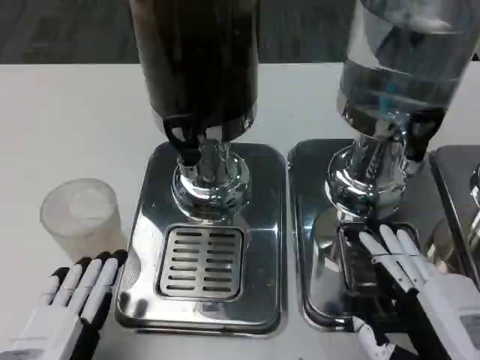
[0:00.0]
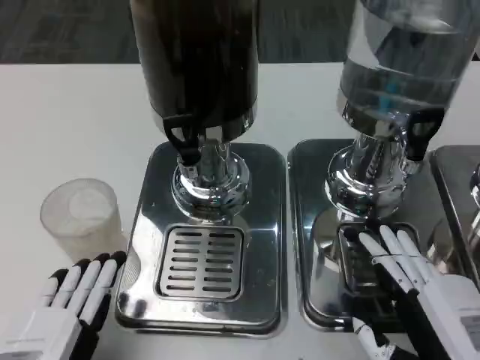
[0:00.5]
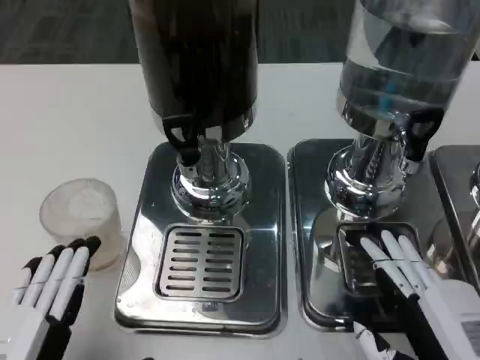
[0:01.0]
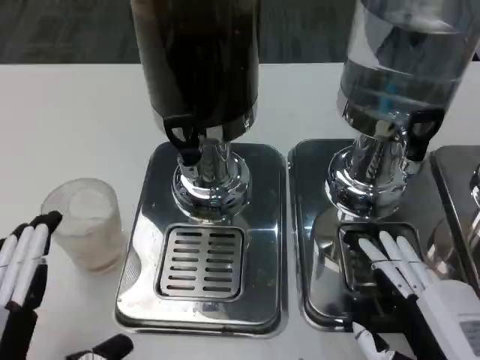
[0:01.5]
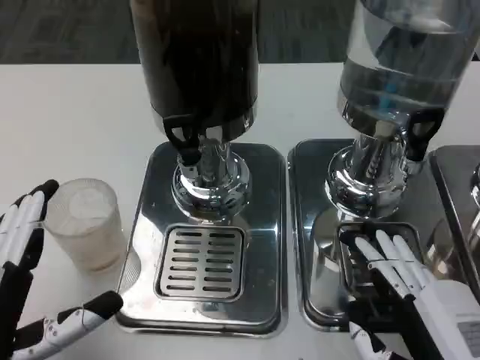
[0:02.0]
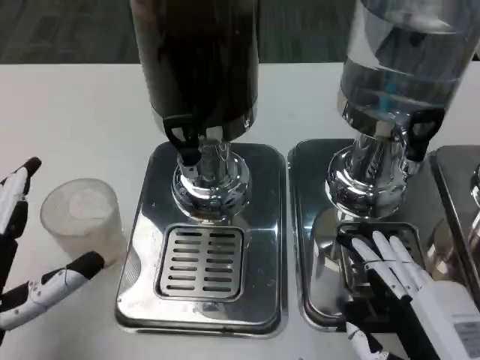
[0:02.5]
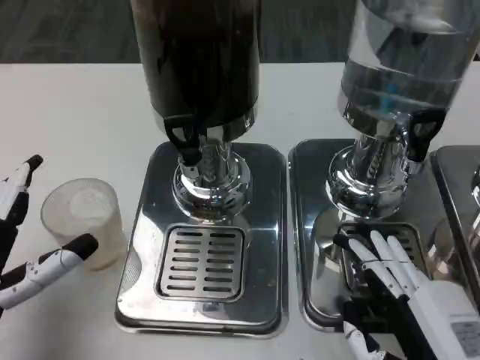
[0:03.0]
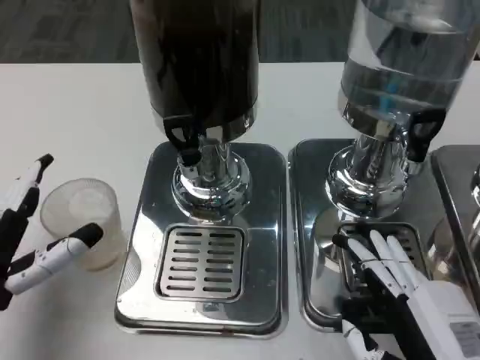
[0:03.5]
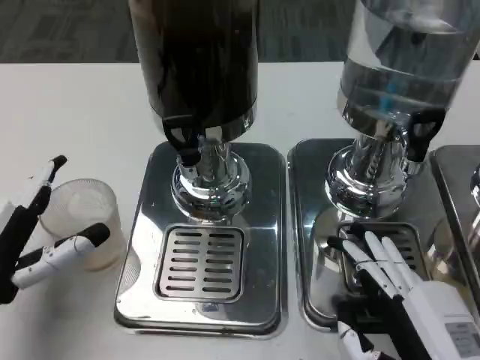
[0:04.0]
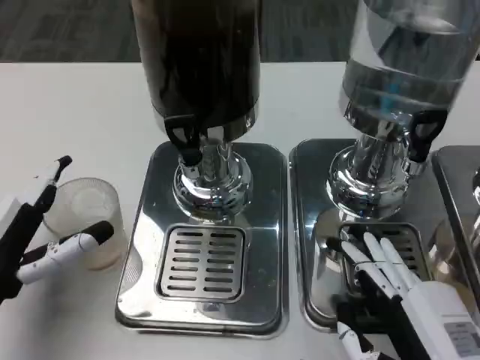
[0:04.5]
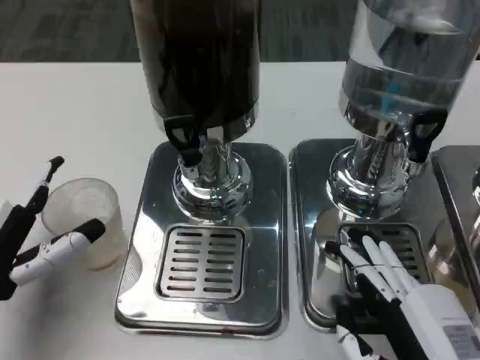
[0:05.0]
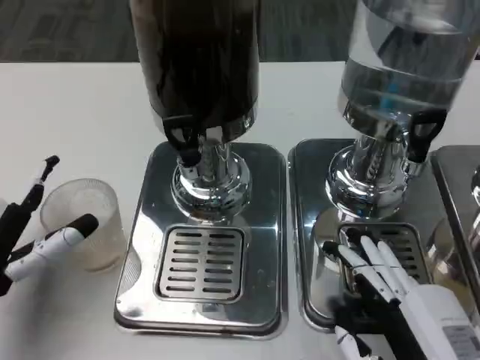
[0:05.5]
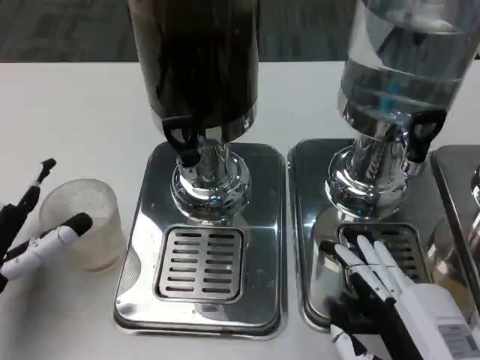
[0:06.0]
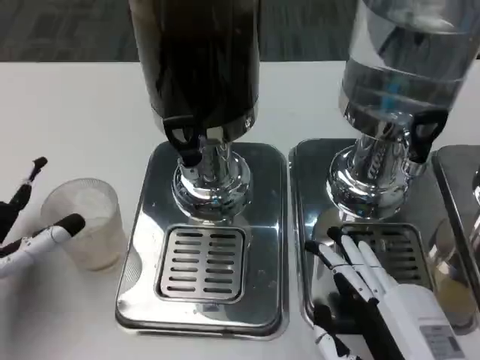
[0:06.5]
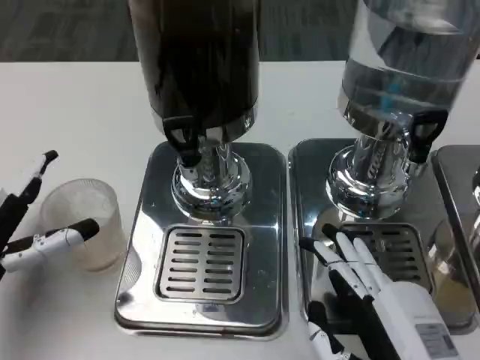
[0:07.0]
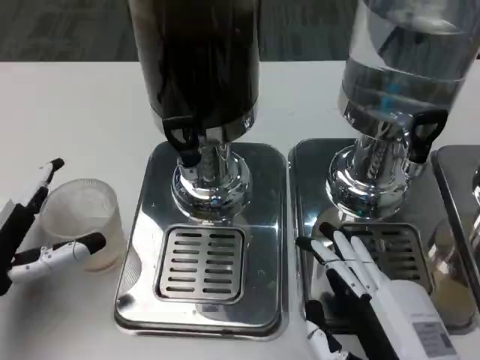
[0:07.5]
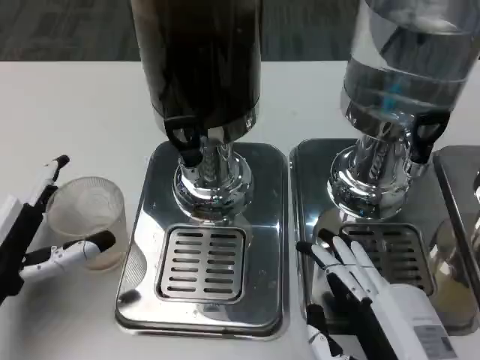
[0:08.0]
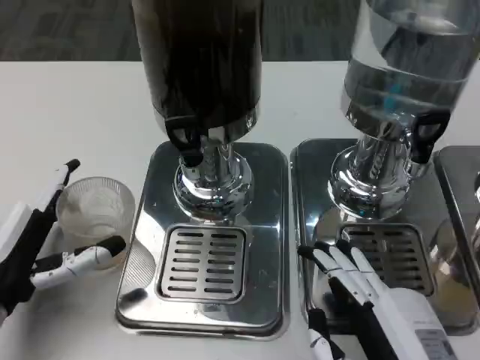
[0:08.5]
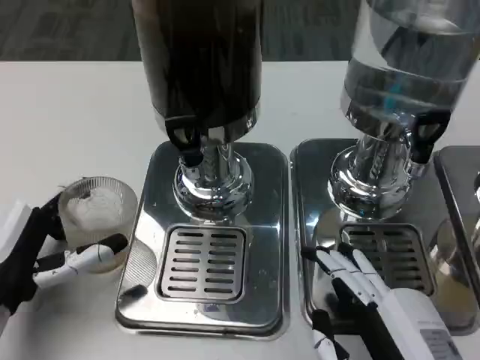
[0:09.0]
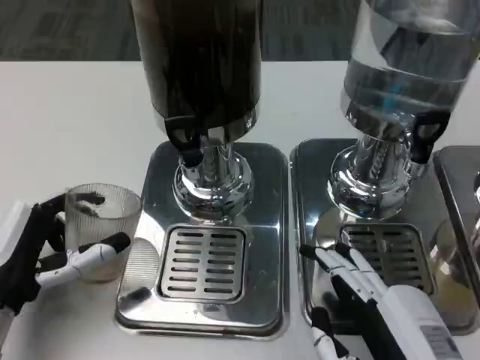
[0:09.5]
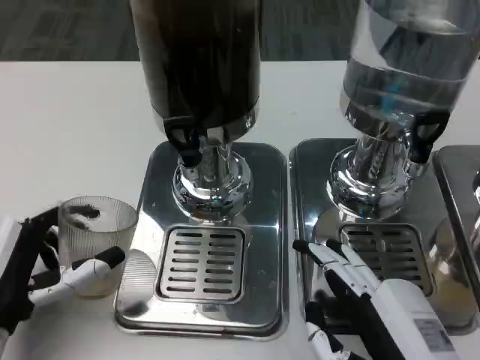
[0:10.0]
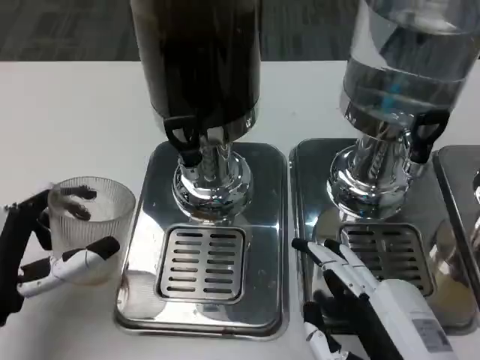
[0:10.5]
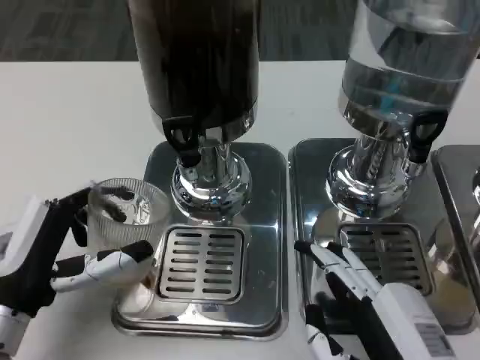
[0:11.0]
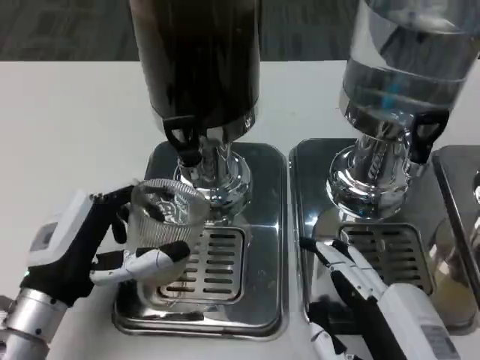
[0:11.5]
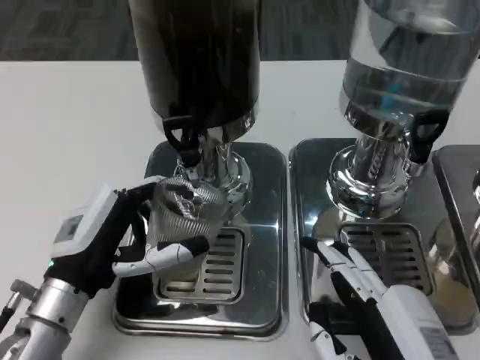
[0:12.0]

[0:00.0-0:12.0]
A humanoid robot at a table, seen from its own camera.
Task of the whole recording: Grasp the cup under the faucet to collect the drink, then remove the cup.
0:02.0 to 0:04.0: The left hand is displaced forward by about 10 cm.
0:04.0 to 0:06.0: There are only small adjustments of the hands.
0:08.0 to 0:10.0: The hands move only a little.
0:10.0 to 0:12.0: The left hand moves to the right, approximately 5 cm.

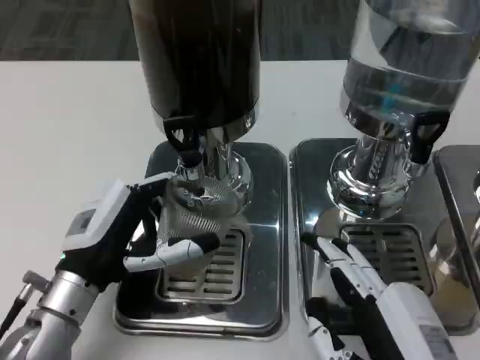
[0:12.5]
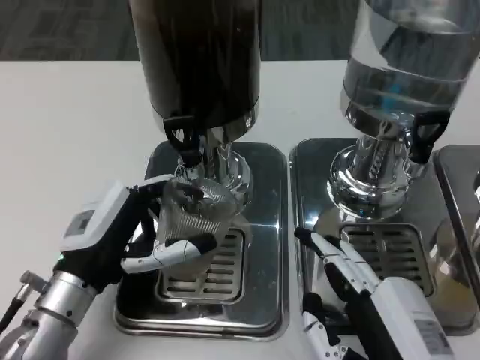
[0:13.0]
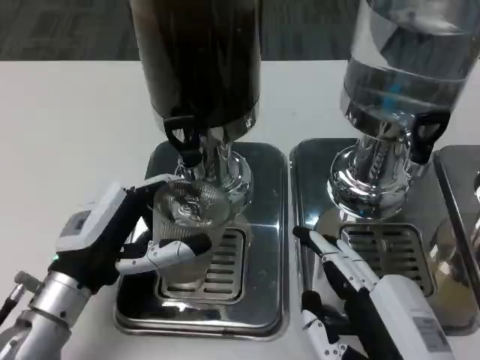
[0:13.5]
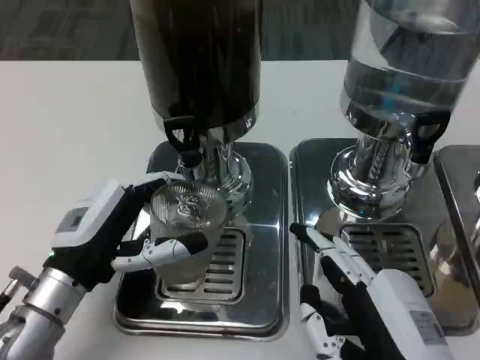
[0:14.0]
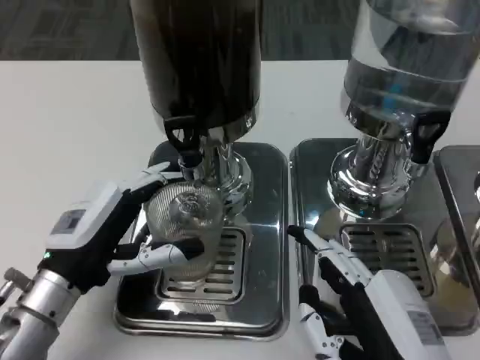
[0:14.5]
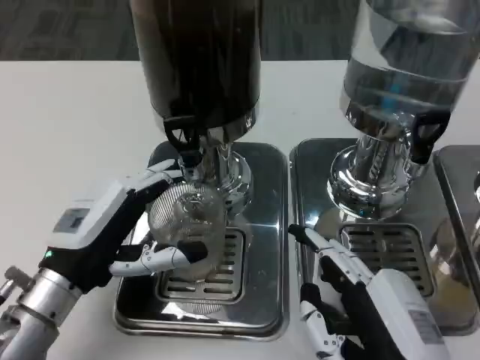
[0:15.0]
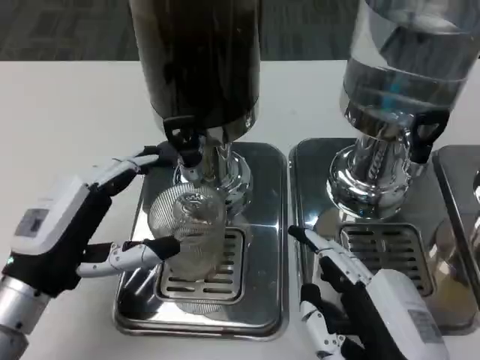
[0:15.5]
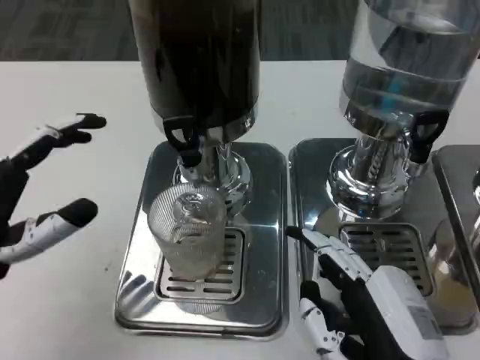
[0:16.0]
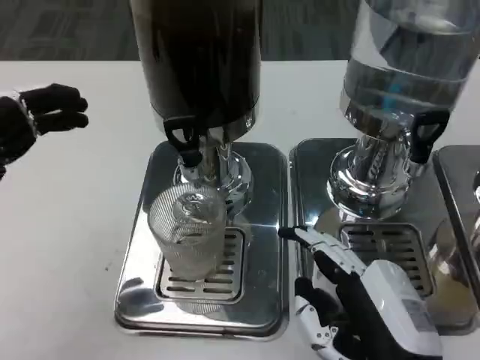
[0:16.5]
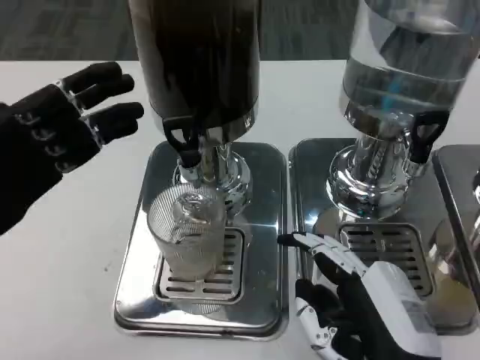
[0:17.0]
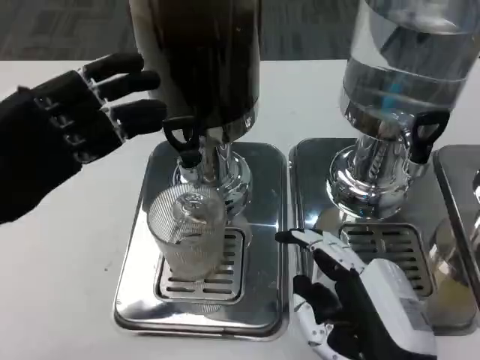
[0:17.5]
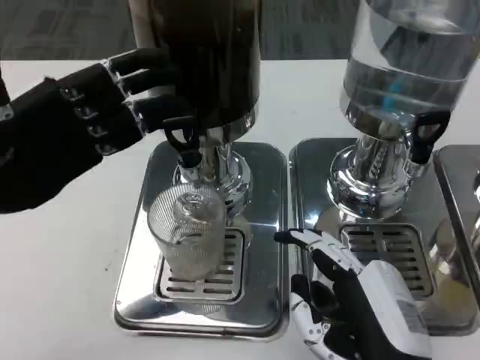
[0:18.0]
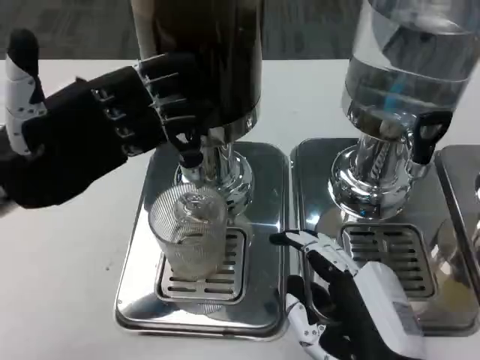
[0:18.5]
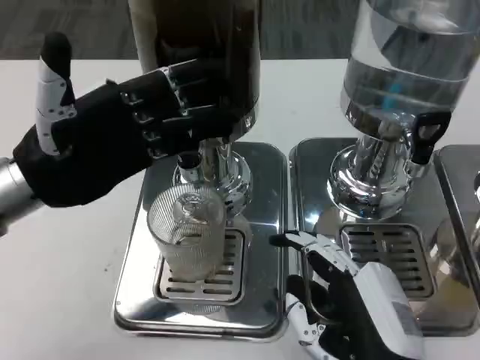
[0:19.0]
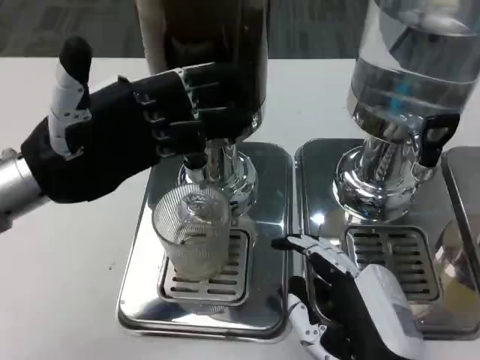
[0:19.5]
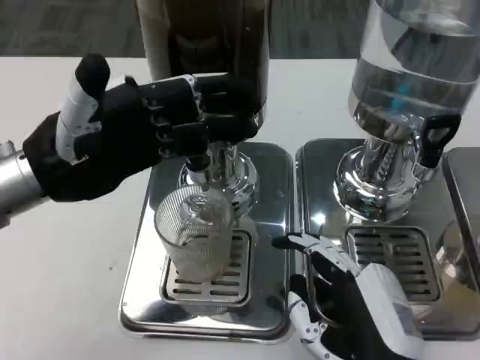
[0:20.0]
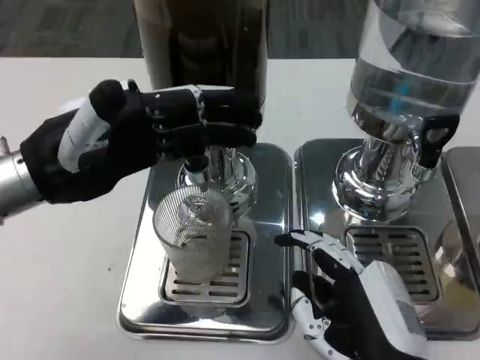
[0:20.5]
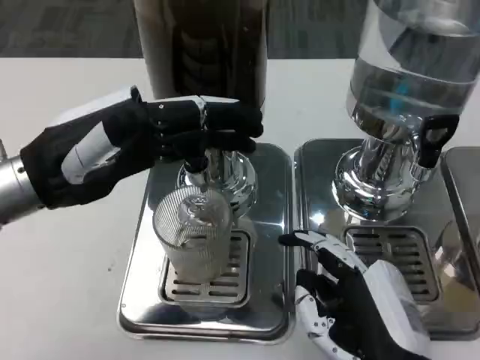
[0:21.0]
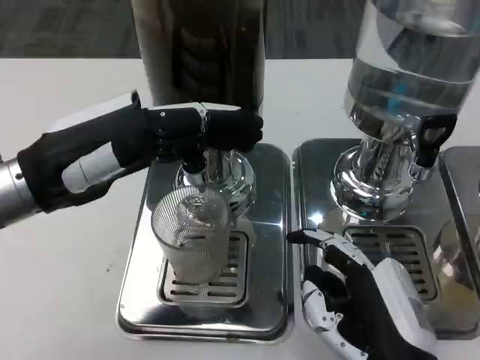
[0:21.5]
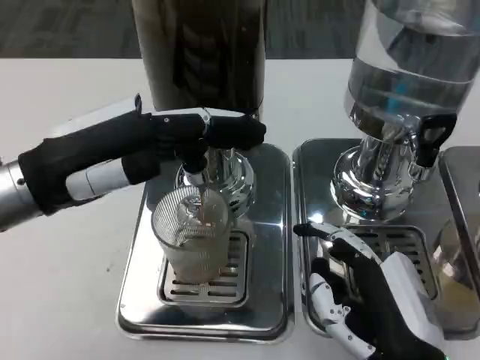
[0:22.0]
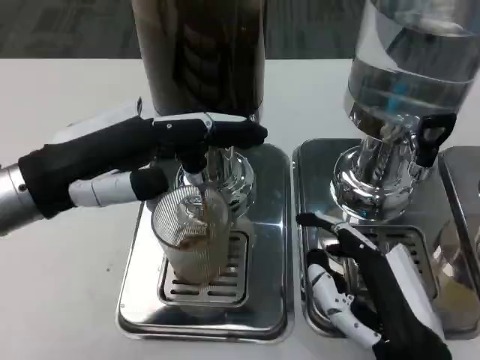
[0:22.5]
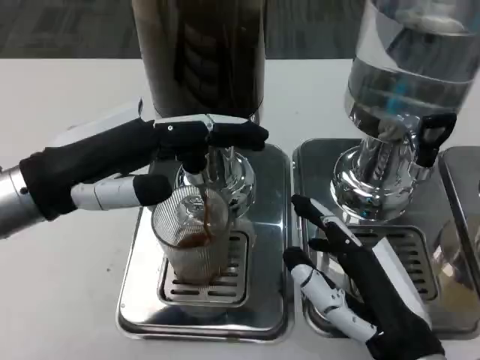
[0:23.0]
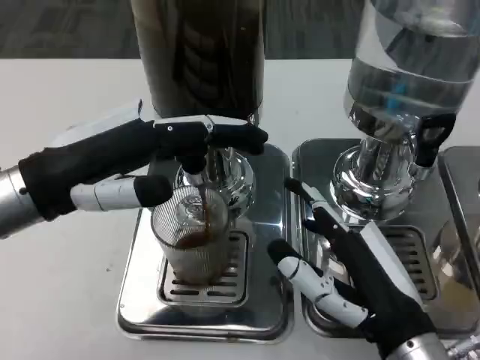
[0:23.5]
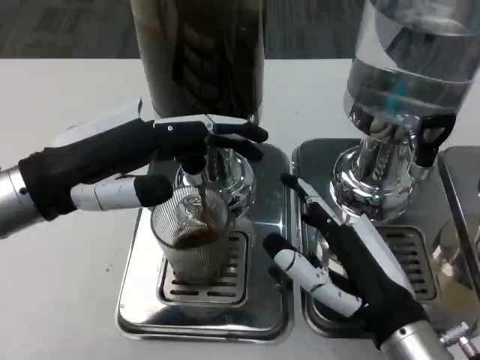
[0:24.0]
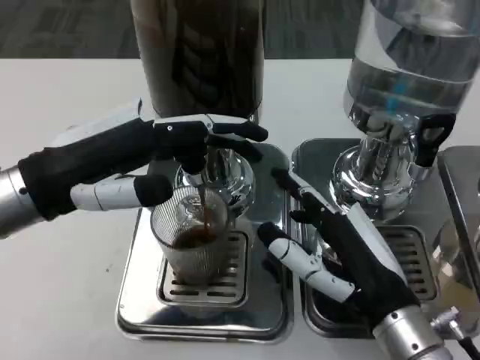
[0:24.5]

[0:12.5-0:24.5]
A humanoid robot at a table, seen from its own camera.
Task of the whole recording: Grasp the cup under the faucet to collect the drink, then remove the cup.
0:12.5 to 0:14.5: The hands stay close to where they were, moving slightly.
0:14.5 to 0:16.5: The left hand travels upward and to the left by roughly 10 cm.
0:16.5 to 0:18.5: The left hand heads forward, covering roughly 10 cm.
0:22.5 to 0:24.5: The right hand is displaced forward by roughly 5 cm.

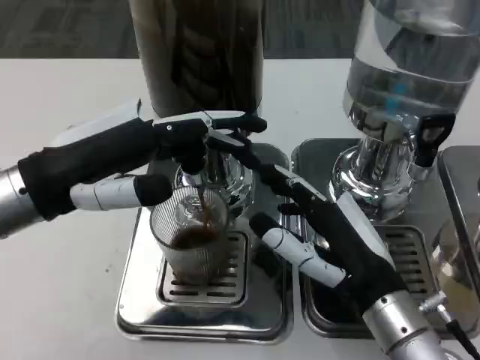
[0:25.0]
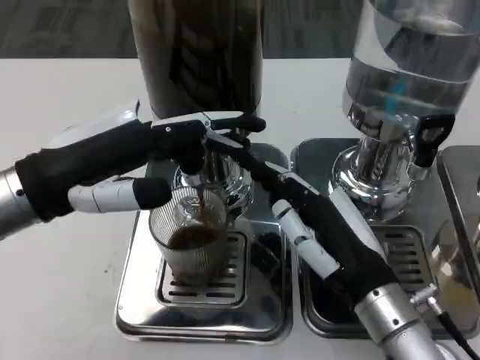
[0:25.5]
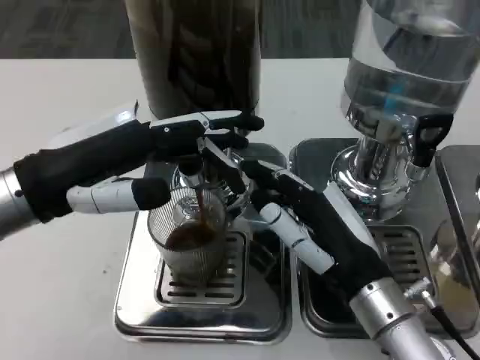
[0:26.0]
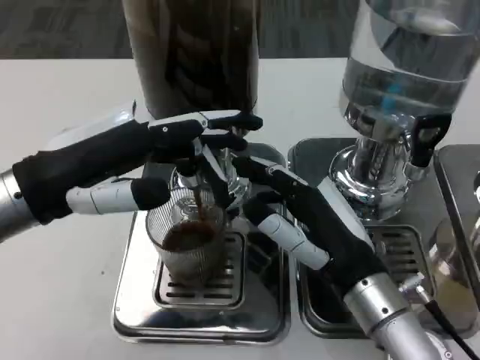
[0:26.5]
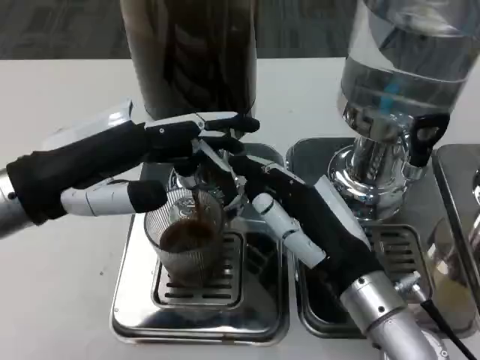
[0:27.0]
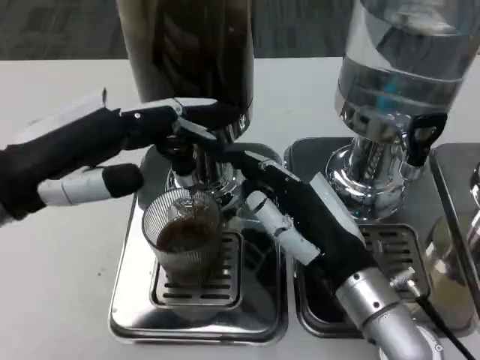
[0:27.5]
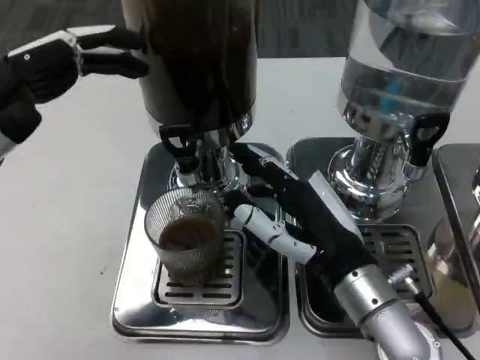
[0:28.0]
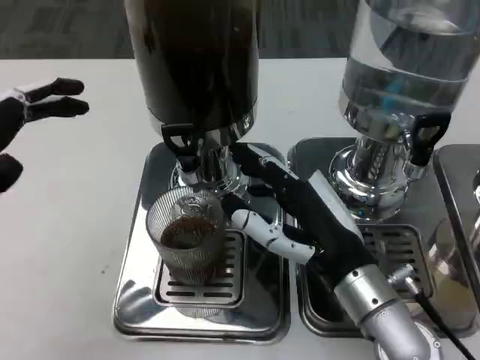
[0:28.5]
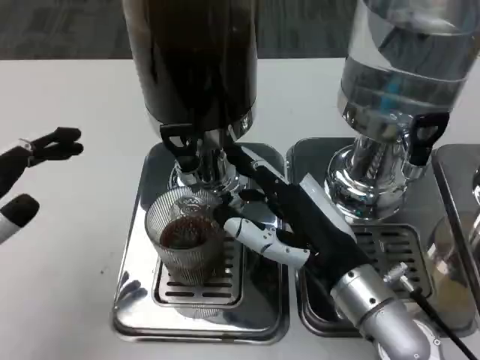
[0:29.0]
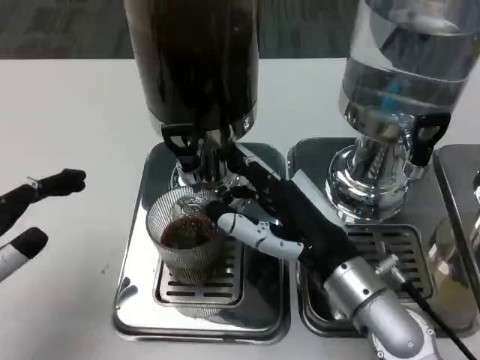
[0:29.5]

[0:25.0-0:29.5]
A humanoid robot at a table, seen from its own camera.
Task of the whole recording: Grasp the cup under the faucet to collect the drink, then remove the cup.
0:27.0 to 0:29.5: The left hand is displaced backward, downward and to the left by roughly 15 cm.
